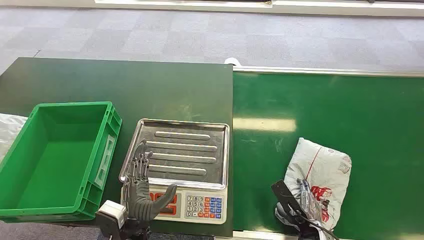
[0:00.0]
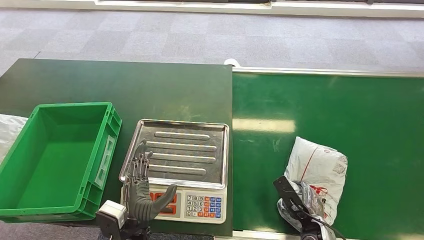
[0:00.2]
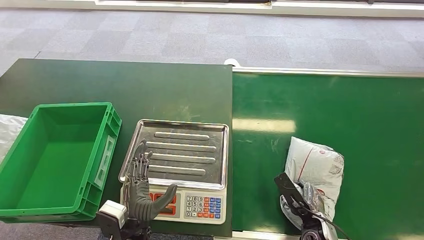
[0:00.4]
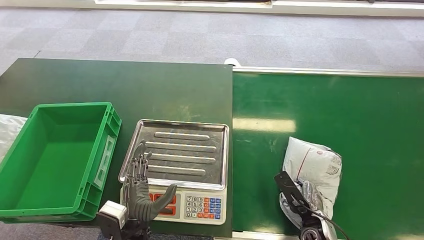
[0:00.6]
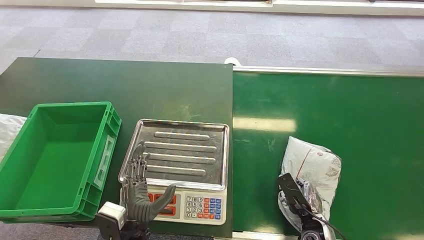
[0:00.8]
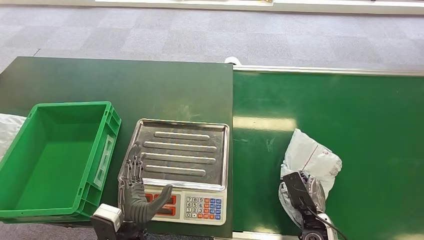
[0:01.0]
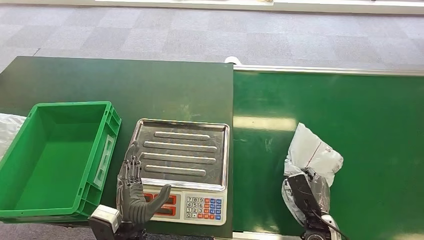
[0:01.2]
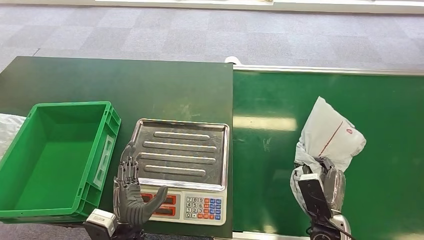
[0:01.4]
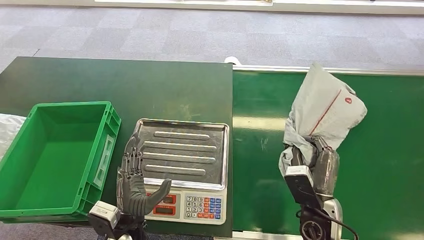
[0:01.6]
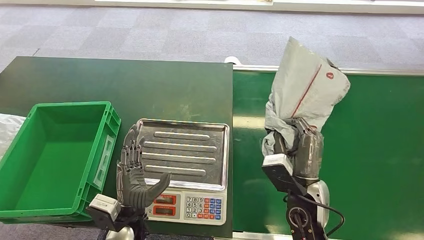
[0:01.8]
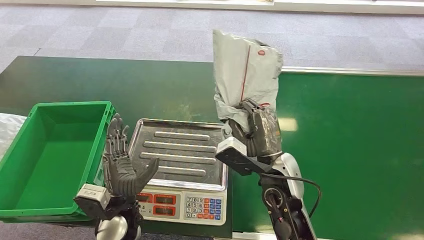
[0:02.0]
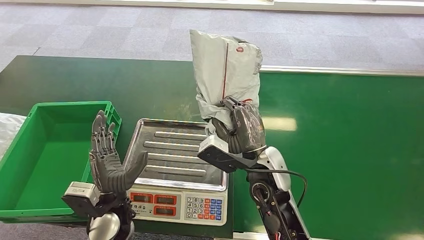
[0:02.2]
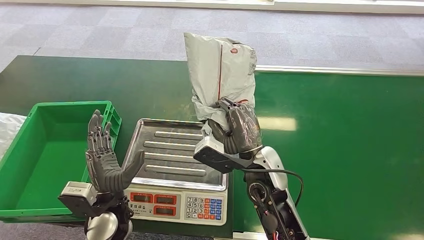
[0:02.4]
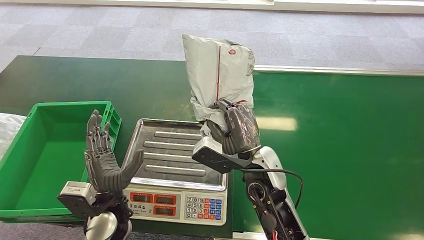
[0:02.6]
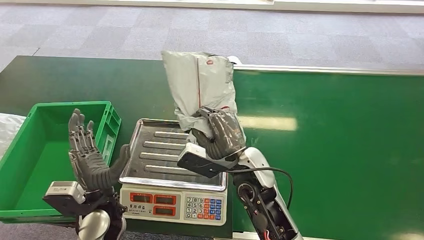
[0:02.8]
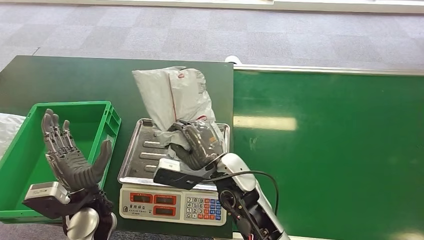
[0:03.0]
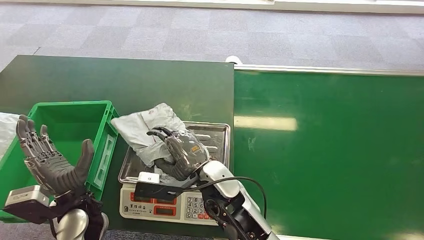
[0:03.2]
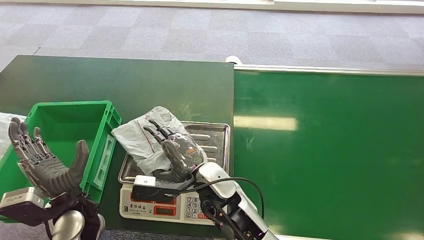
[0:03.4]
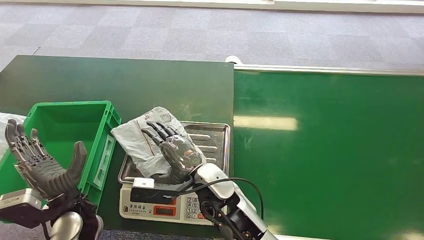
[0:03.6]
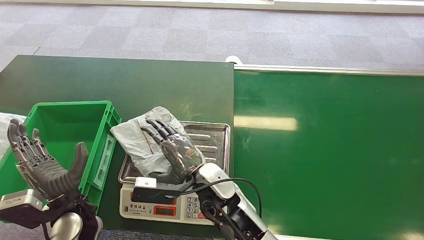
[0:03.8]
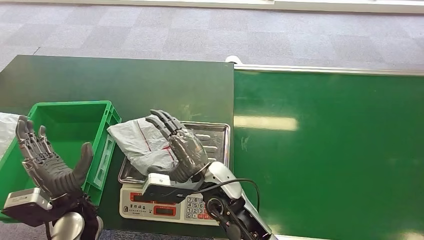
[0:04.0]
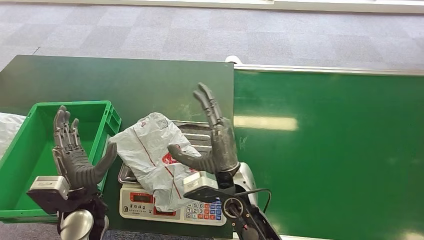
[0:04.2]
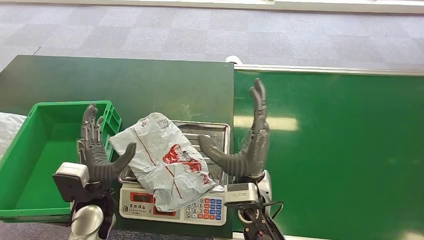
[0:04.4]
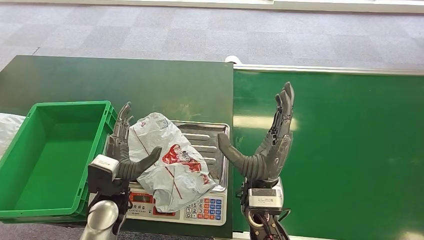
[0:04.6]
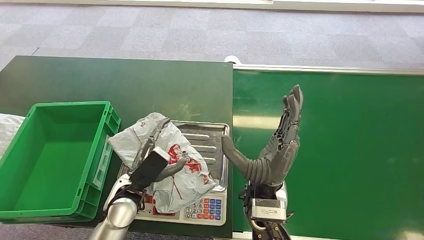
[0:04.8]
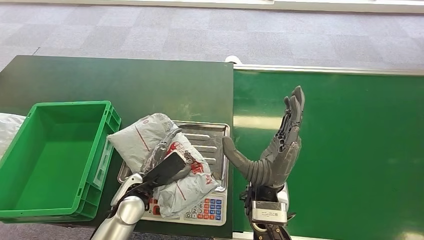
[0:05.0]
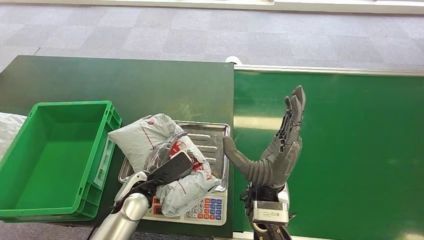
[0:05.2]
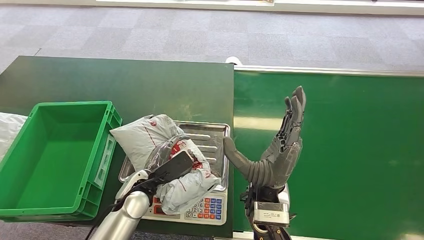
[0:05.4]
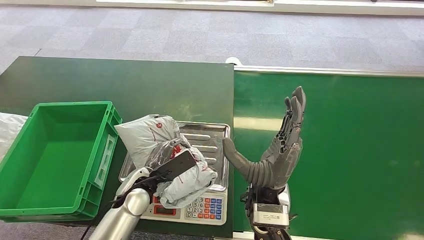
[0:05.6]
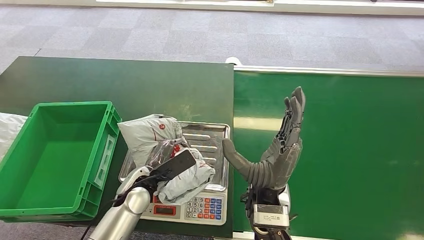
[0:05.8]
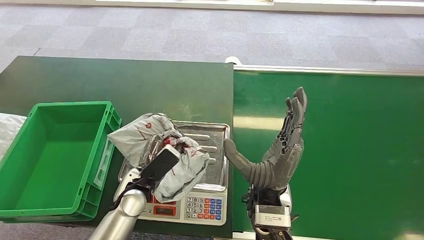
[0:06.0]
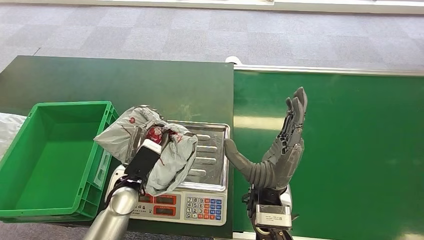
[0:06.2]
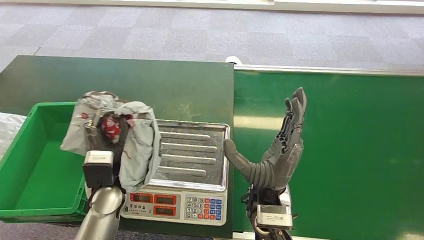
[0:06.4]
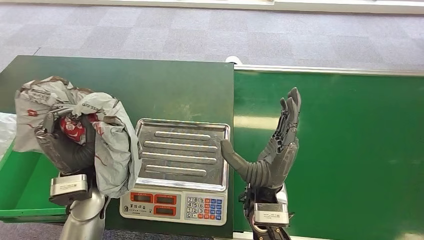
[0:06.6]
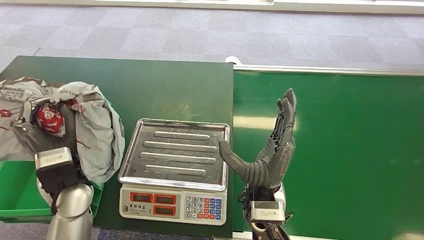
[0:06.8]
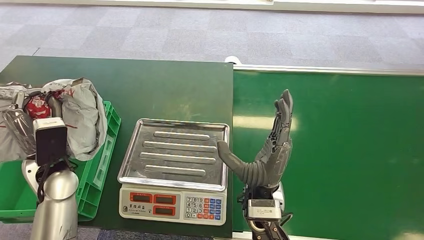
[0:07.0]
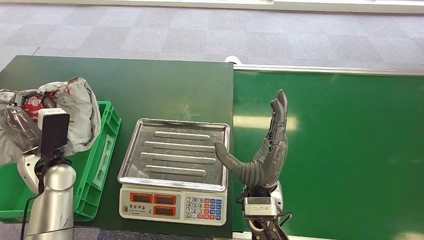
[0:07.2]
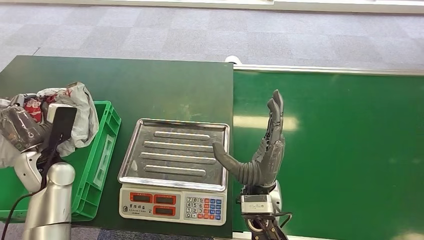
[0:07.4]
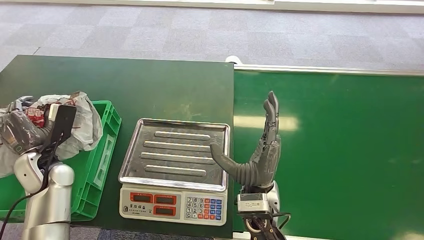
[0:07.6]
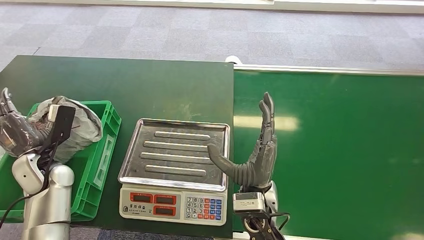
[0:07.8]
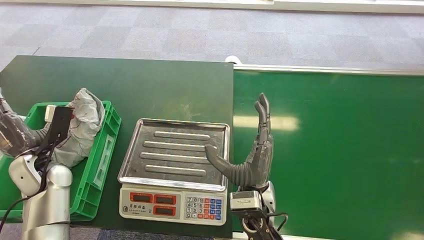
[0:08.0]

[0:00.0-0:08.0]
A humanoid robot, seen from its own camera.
Step, 0:00.0 to 0:01.4: Pick up the package from the conveyor belt.
Step, 0:03.0 to 0:03.6: Place the package onto the inbound machine.
Step, 0:06.0 to 0:06.6: Pick up the package from the inbound machine.
Step, 0:07.4 to 0:08.0: Place the package into the parcel locker.
0:03.2 to 0:04.8: Both hands move to the right, roughly 5 cm.
0:06.4 to 0:08.0: The left hand moves to the left, approximately 20 cm.
